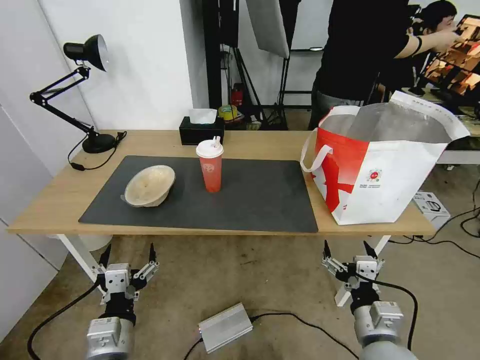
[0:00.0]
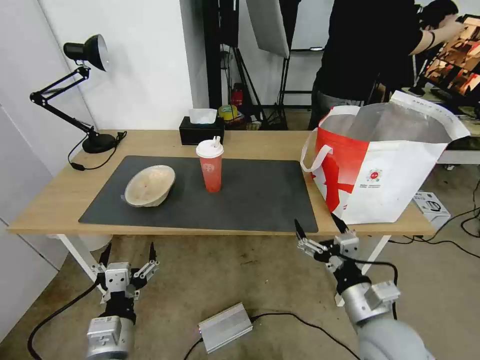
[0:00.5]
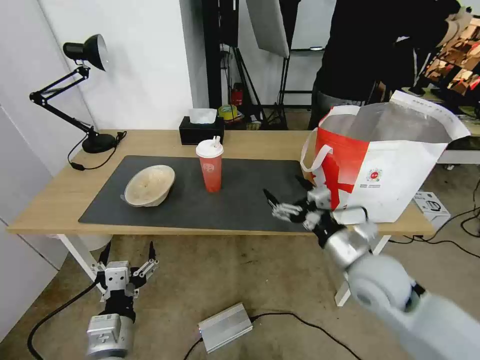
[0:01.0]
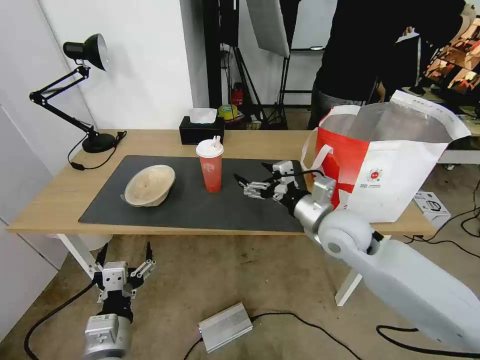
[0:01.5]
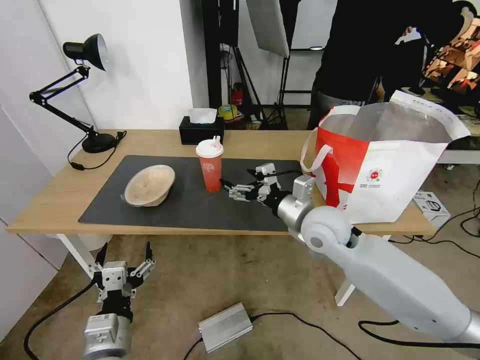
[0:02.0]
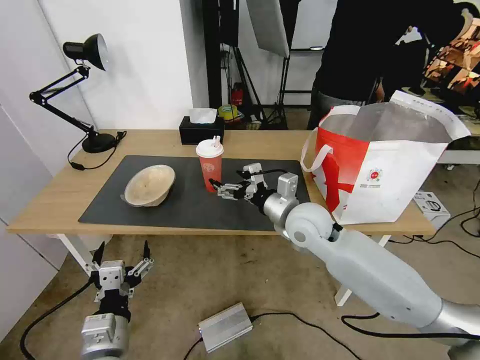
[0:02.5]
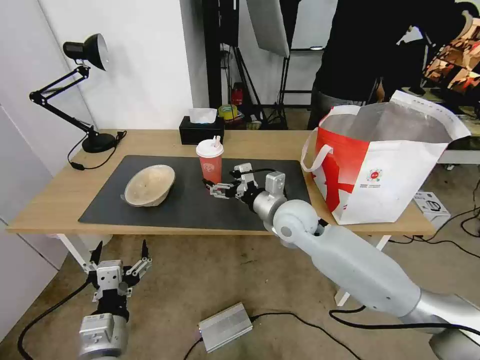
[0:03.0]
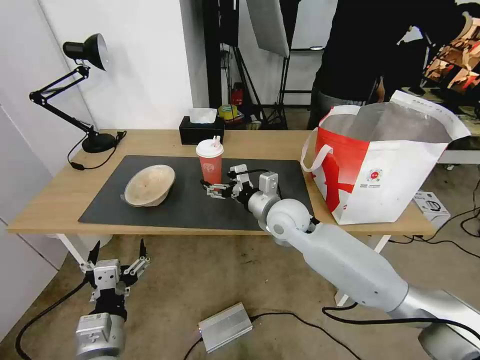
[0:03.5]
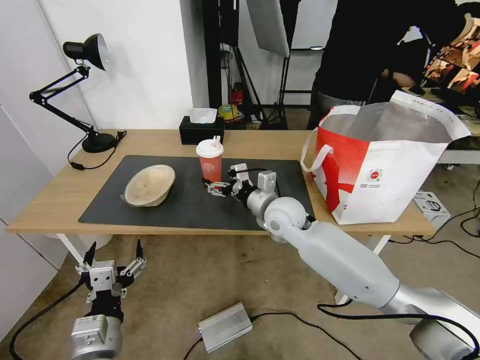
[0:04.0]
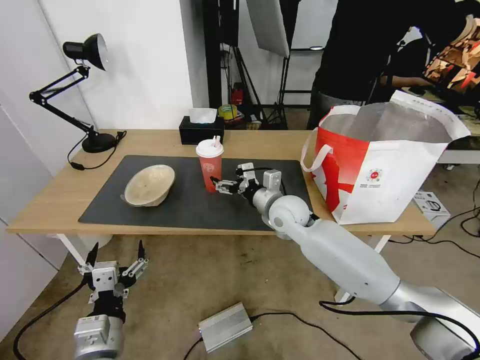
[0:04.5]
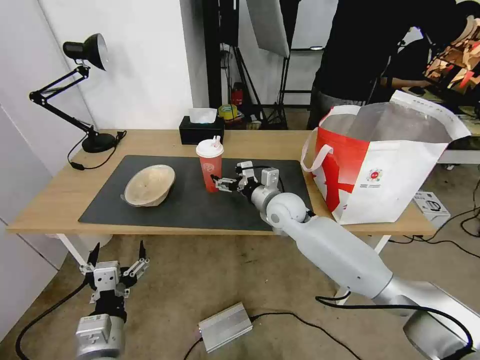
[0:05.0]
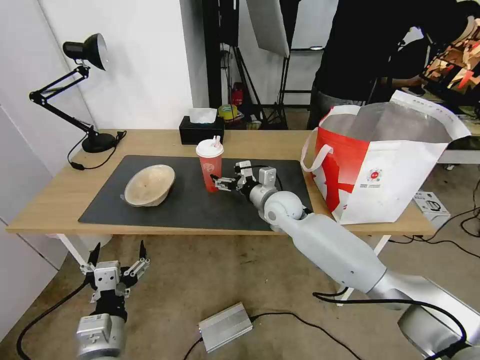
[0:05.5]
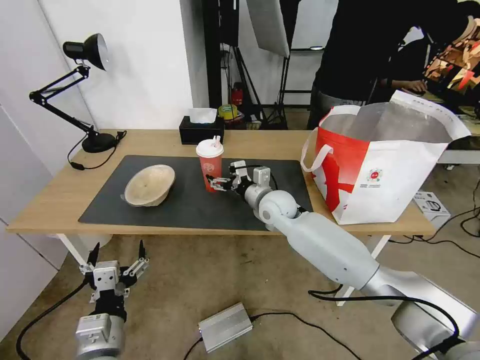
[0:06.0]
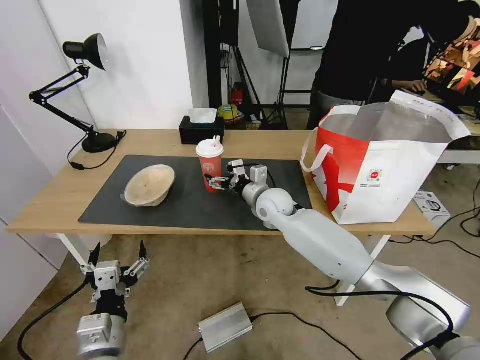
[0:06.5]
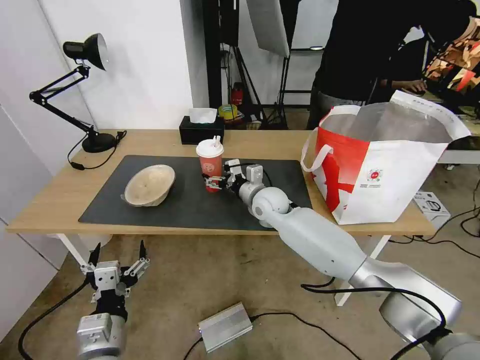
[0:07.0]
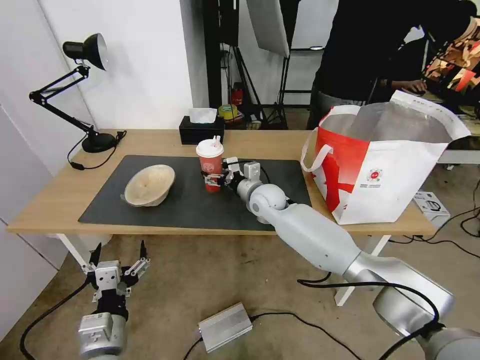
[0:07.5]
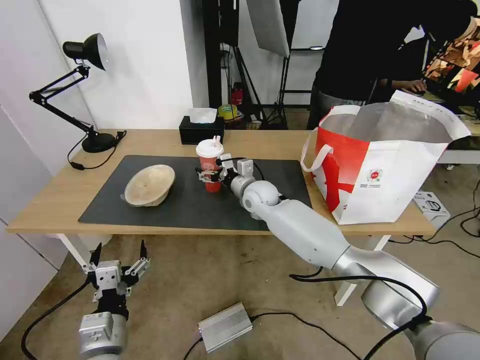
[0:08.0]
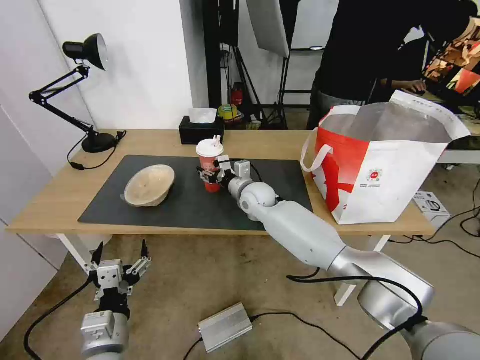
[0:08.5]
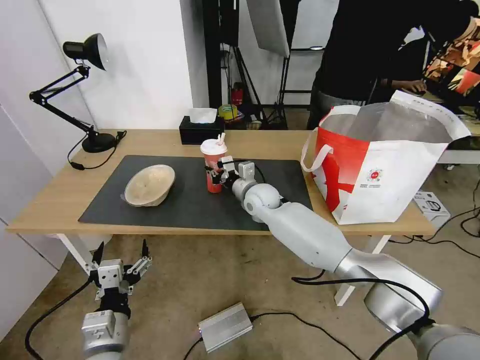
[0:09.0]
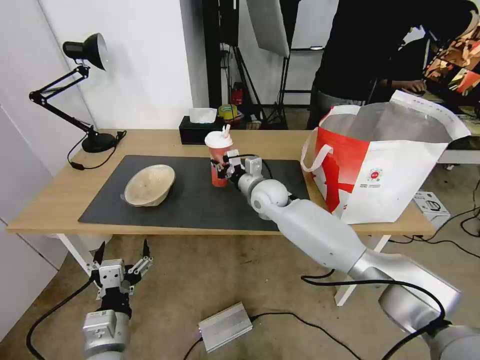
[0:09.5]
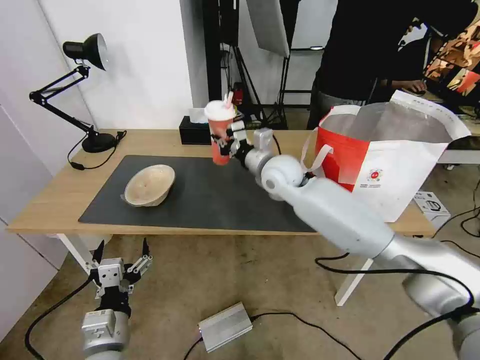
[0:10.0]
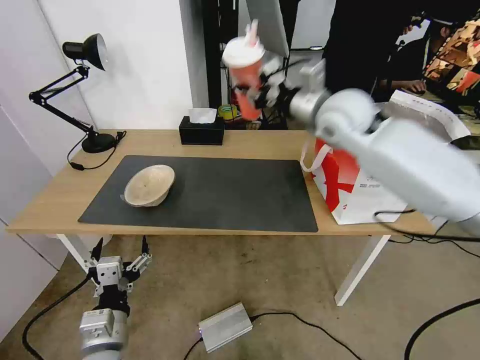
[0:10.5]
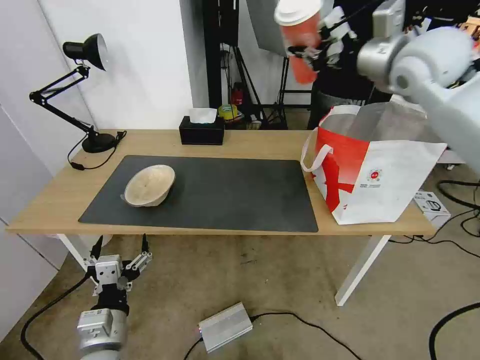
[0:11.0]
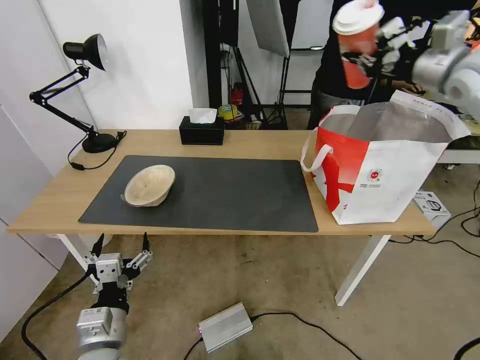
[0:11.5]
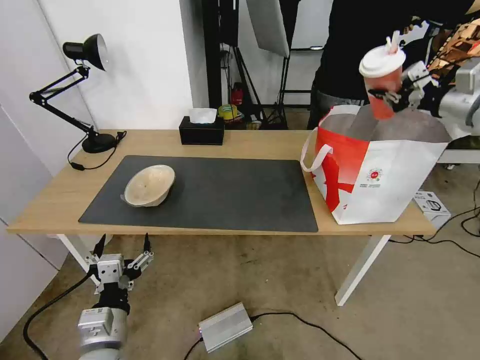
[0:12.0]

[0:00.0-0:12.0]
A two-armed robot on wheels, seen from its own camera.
Task of the whole recording: Pick up the trash from the table and place it into the takeout bag.
0:00.0 to 0:02.0: The right gripper goes about 25 cm forward and upward.
0:02.0 to 0:04.0: The right gripper moves to the left and forward, approximately 10 cm.
0:04.0 to 0:06.0: The right gripper shifts approximately 5 cm forward.
0:06.0 to 0:08.0: The right gripper changes place by approximately 5 cm.
0:08.0 to 0:10.0: The right gripper moves upward, roughly 10 cm, and closes its fingers.
0:10.0 to 0:12.0: The right gripper heads to the right and upward, covering approximately 40 cm.

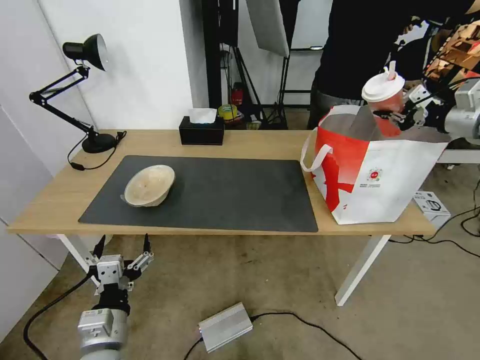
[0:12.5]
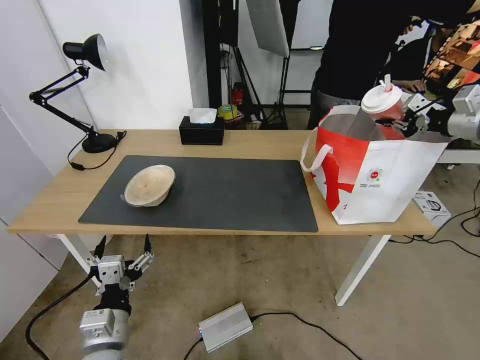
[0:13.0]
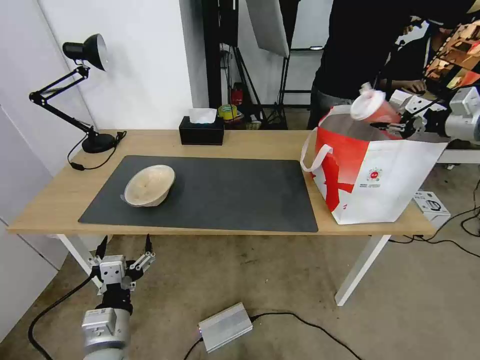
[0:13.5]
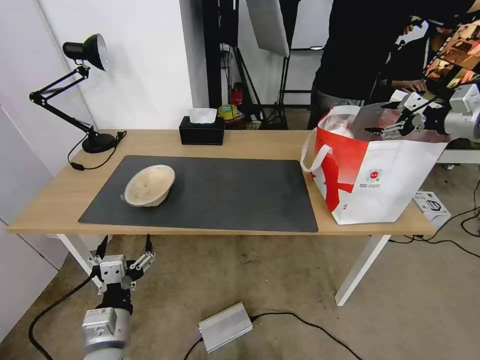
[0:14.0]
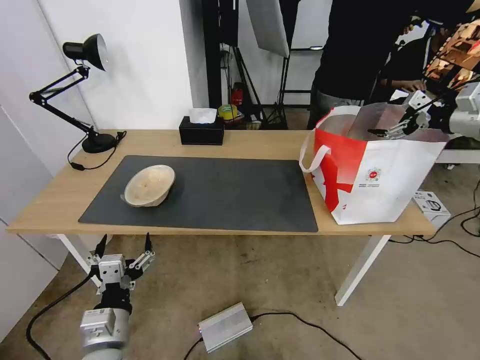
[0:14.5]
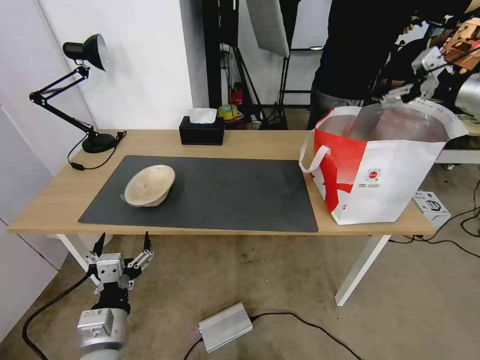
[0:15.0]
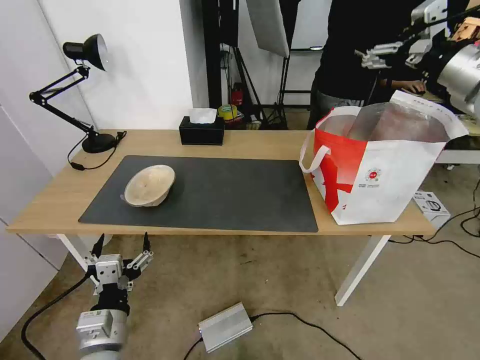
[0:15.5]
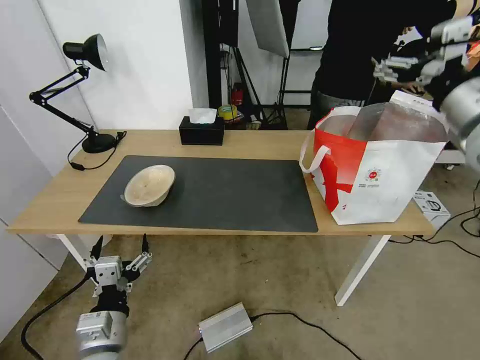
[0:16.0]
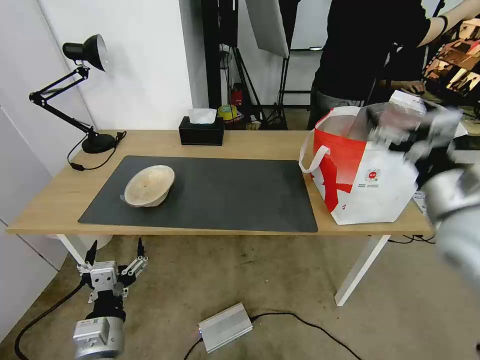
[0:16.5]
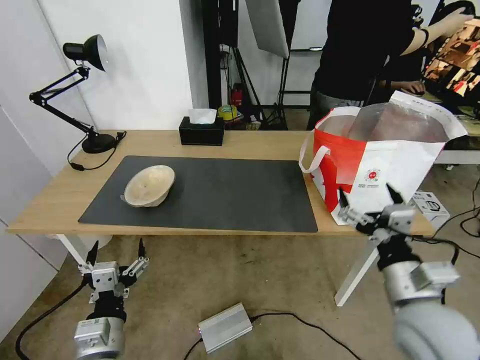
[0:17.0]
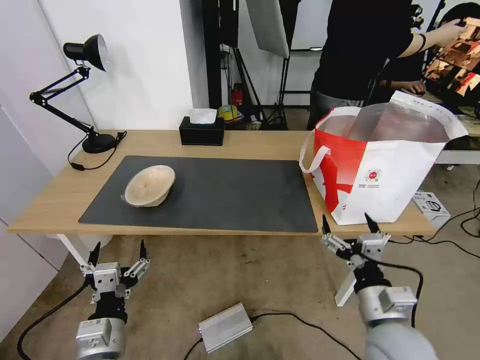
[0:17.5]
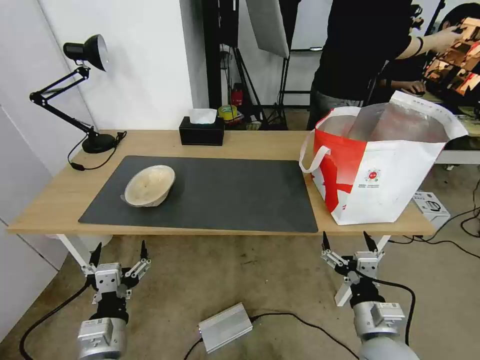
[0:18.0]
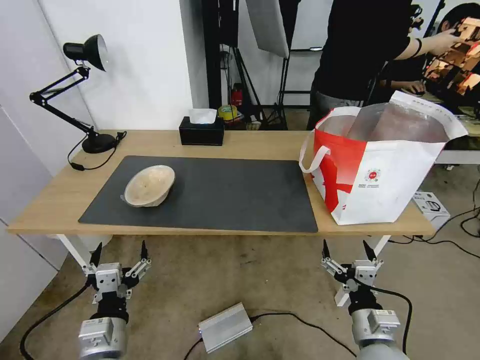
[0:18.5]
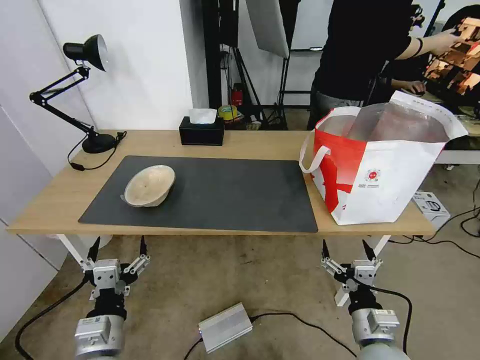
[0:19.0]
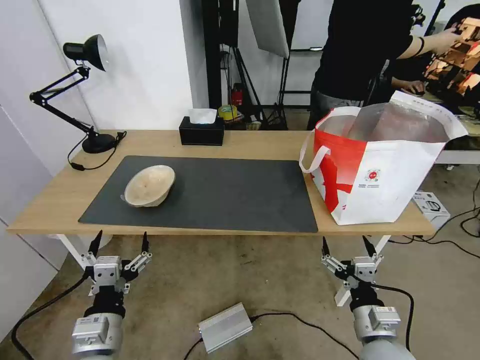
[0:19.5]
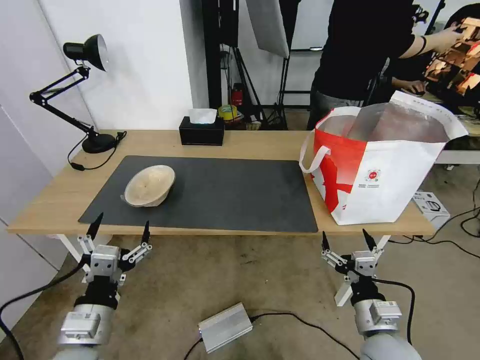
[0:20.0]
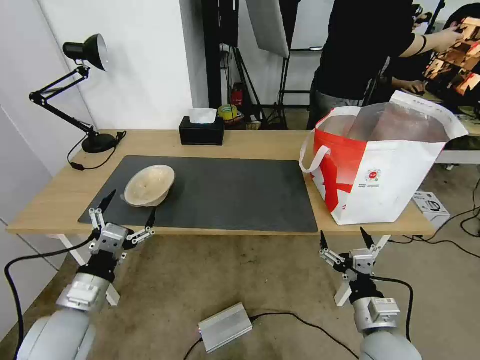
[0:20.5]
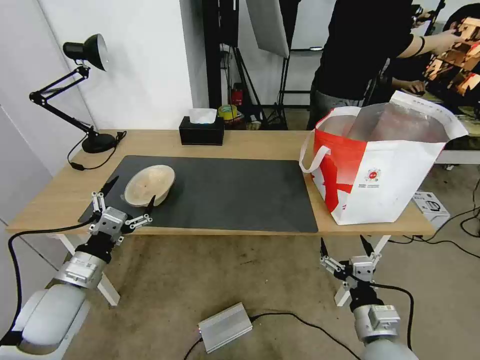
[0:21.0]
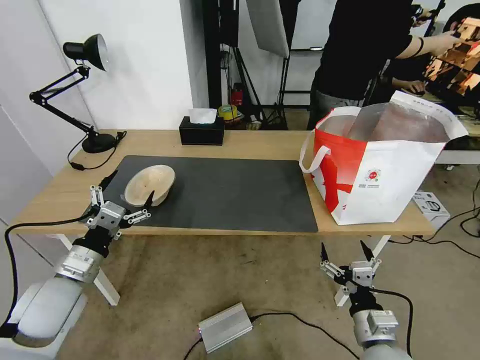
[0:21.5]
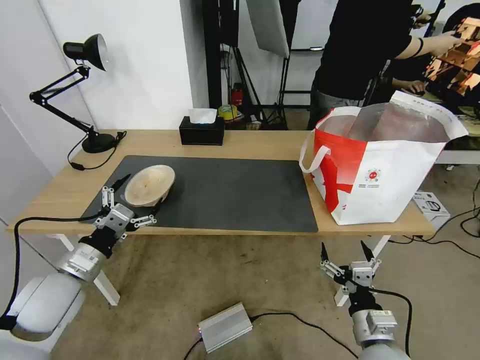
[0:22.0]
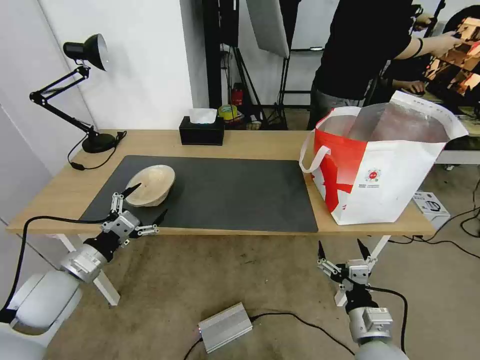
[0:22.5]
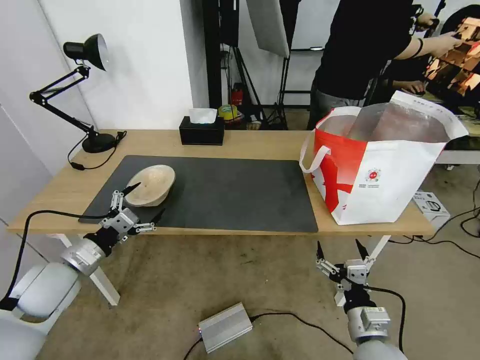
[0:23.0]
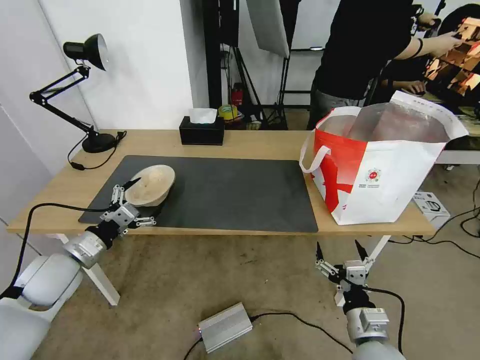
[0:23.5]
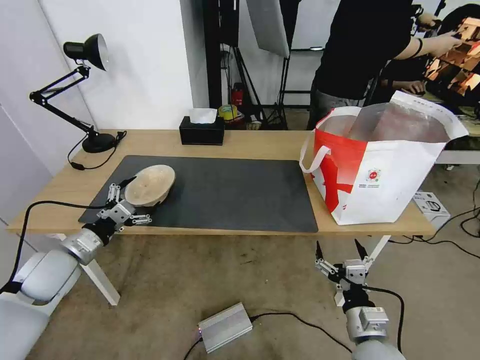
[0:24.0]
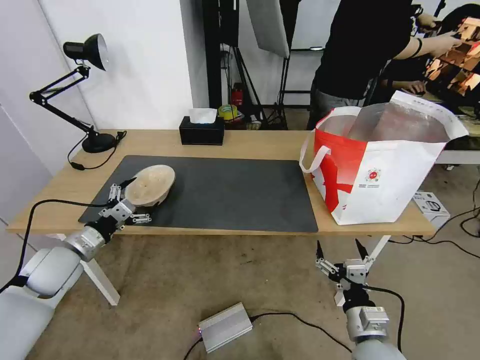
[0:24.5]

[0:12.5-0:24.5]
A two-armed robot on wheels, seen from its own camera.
Task of the whole recording: Pick up the trash from the table and place it into the takeout bag.
0:12.5 to 0:14.5: The right gripper opens up.
0:14.5 to 0:16.5: The right gripper moves backward, to the left and downward, some 30 cm.
0:16.5 to 0:18.5: The right gripper is displaced downward and backward by some 25 cm.
0:18.5 to 0:20.5: The left gripper moves to the left and forward, roughly 10 cm.
0:20.5 to 0:22.5: The left gripper is displaced forward and to the left by roughly 10 cm.
0:22.5 to 0:24.5: The left gripper heads forward, covering about 5 cm.

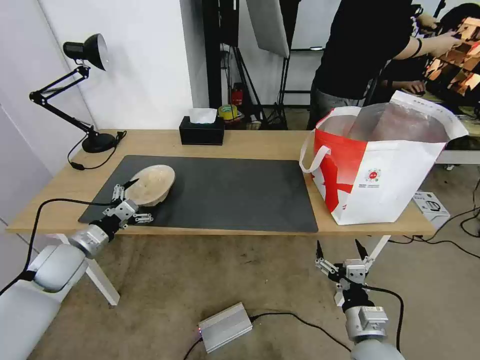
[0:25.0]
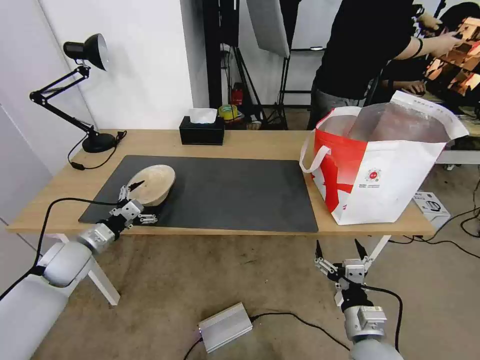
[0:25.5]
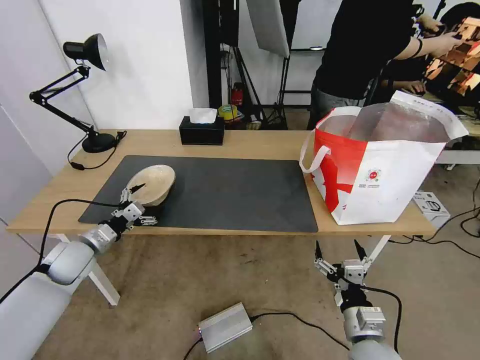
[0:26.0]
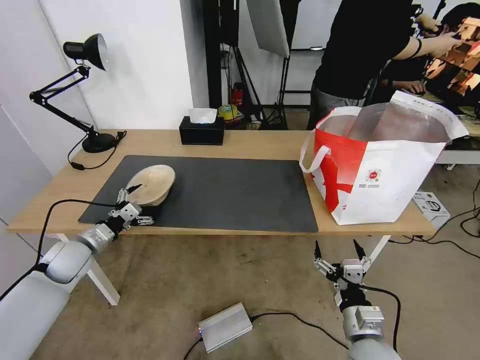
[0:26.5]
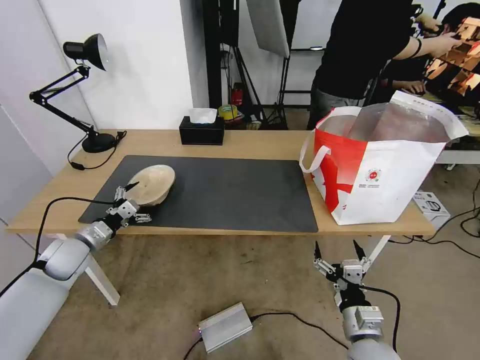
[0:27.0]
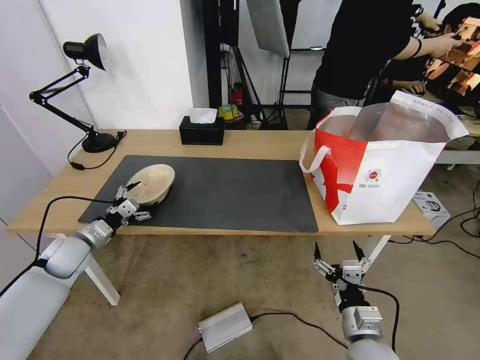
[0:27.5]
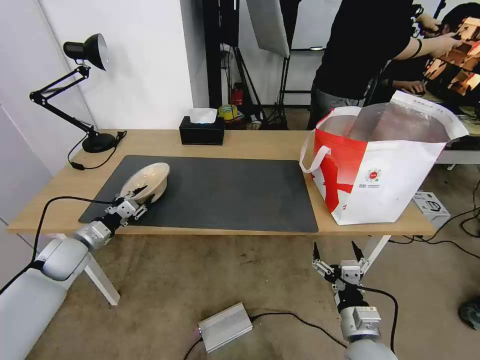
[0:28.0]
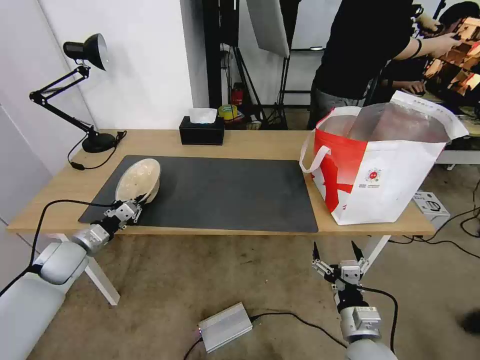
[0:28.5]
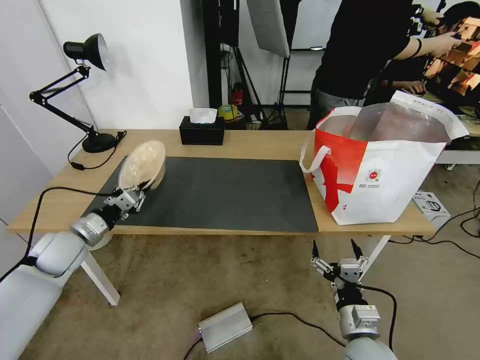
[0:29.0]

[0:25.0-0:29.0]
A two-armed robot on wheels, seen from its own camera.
Task of the whole recording: Pick up the trash from the table and place it into the takeout bag.
0:25.0 to 0:27.0: The grippers make only small movements.
0:27.0 to 0:29.0: The left gripper closes its fingers.
